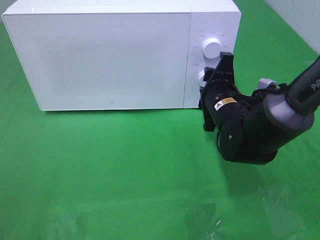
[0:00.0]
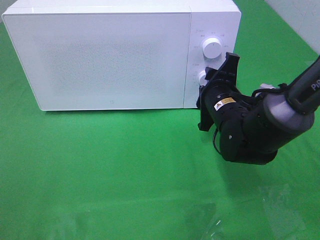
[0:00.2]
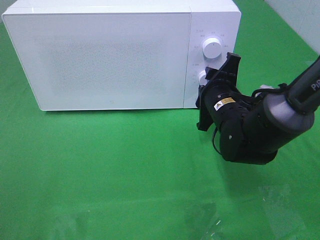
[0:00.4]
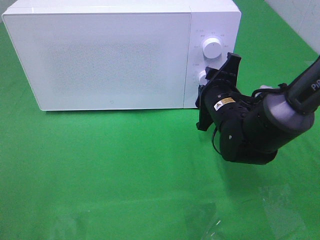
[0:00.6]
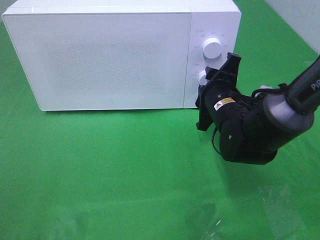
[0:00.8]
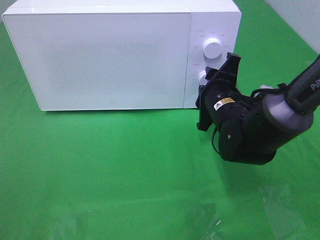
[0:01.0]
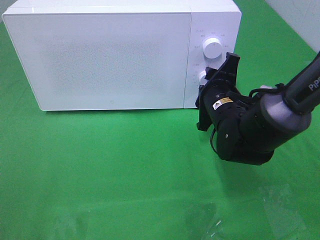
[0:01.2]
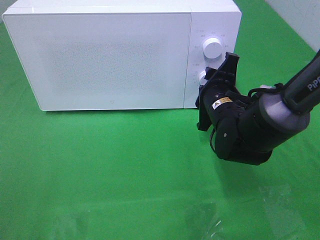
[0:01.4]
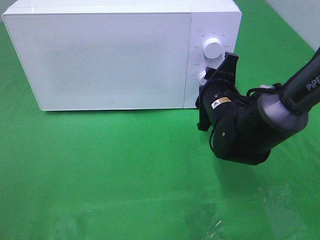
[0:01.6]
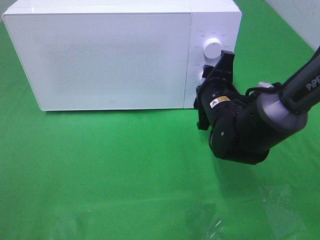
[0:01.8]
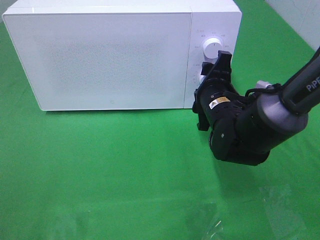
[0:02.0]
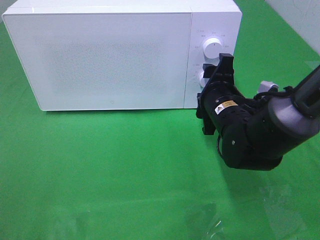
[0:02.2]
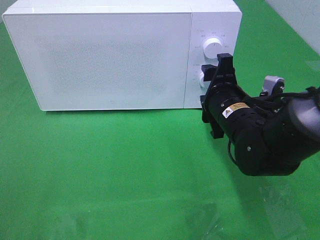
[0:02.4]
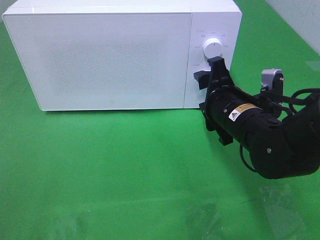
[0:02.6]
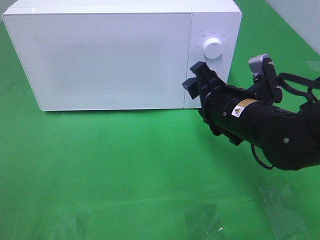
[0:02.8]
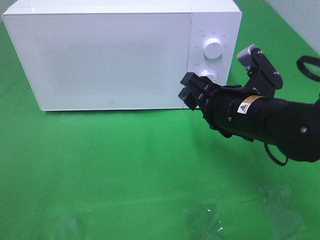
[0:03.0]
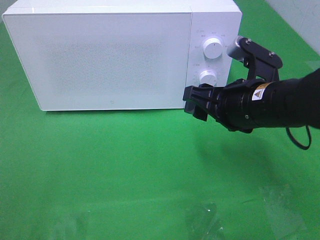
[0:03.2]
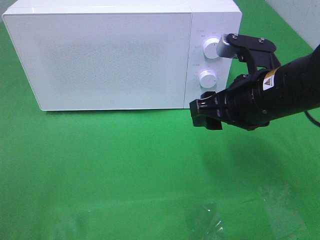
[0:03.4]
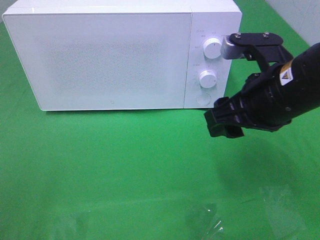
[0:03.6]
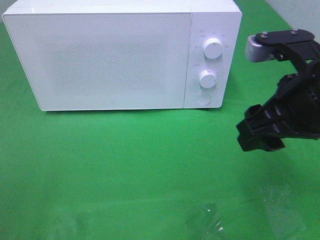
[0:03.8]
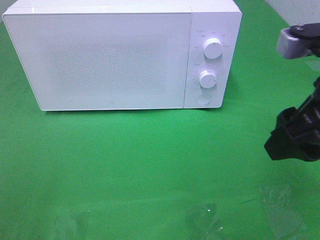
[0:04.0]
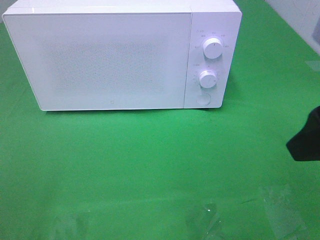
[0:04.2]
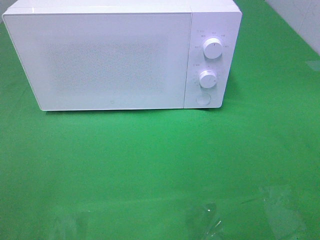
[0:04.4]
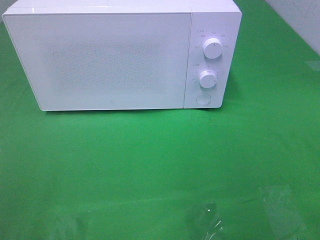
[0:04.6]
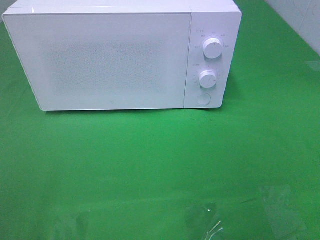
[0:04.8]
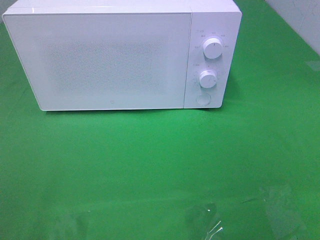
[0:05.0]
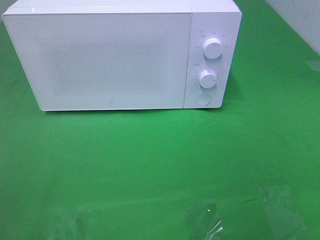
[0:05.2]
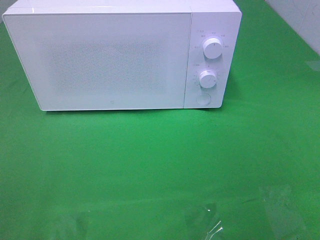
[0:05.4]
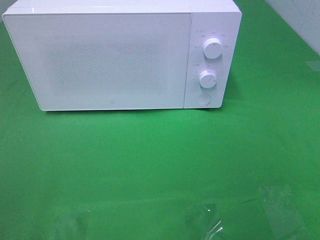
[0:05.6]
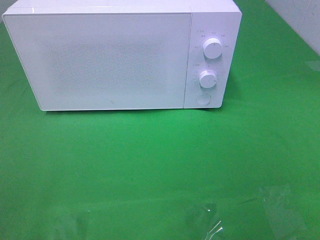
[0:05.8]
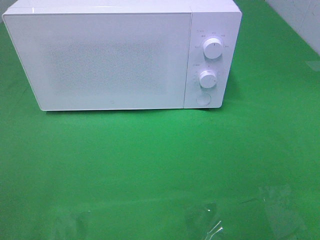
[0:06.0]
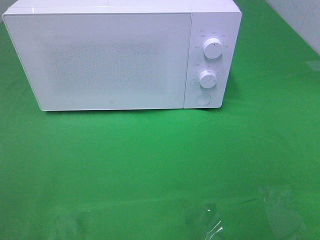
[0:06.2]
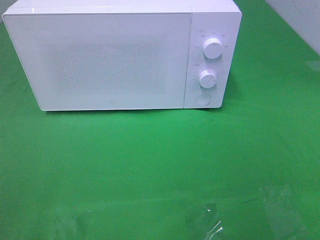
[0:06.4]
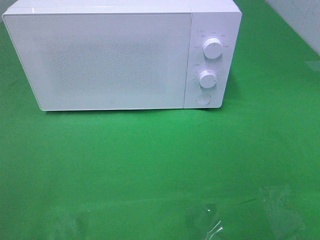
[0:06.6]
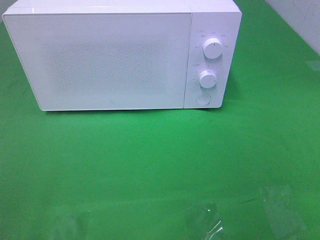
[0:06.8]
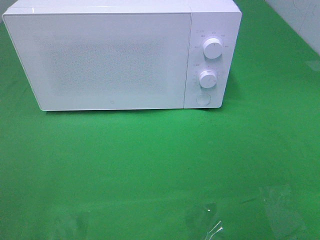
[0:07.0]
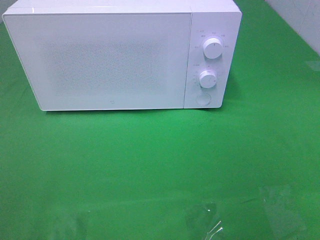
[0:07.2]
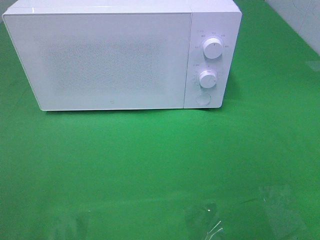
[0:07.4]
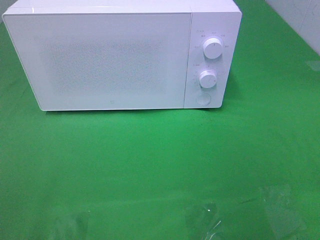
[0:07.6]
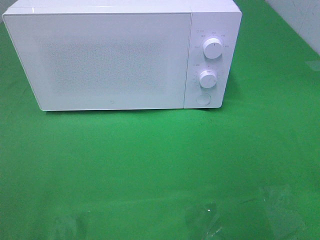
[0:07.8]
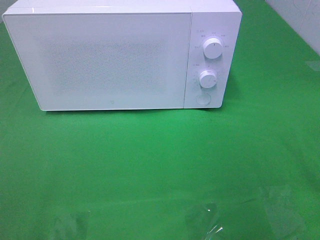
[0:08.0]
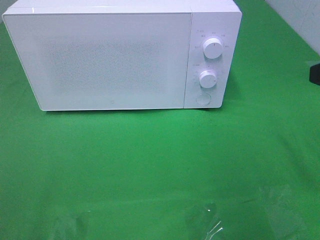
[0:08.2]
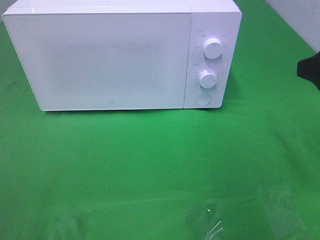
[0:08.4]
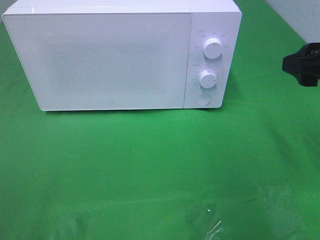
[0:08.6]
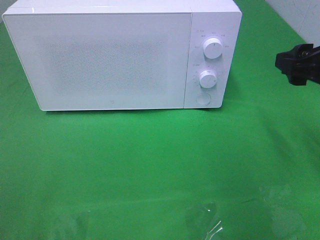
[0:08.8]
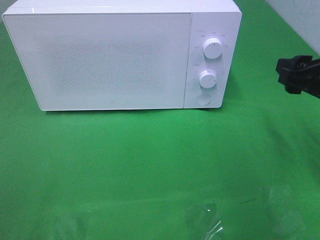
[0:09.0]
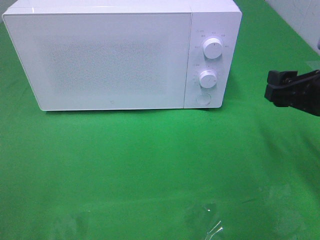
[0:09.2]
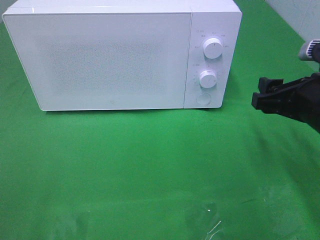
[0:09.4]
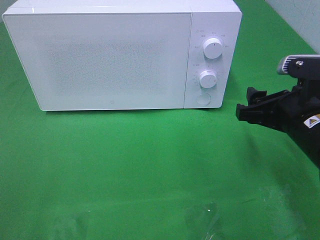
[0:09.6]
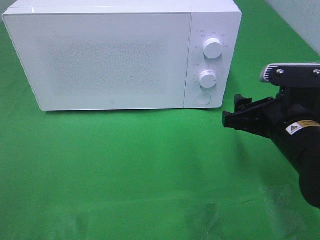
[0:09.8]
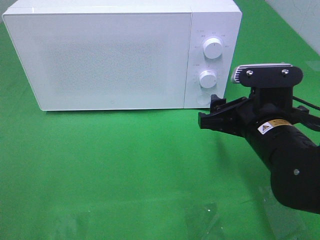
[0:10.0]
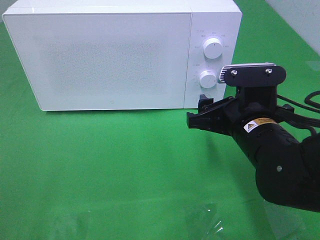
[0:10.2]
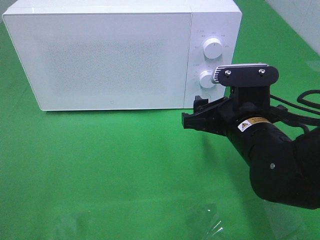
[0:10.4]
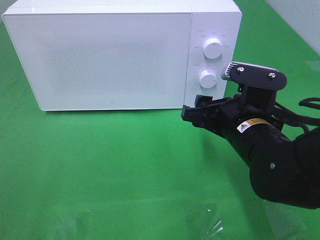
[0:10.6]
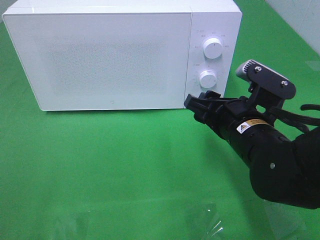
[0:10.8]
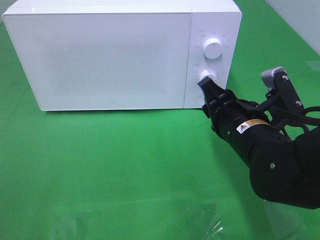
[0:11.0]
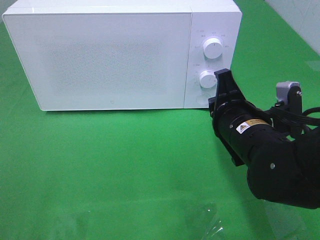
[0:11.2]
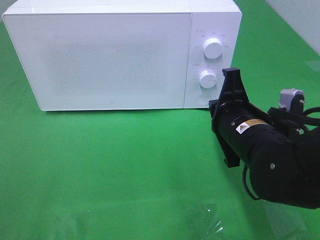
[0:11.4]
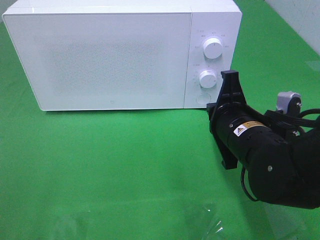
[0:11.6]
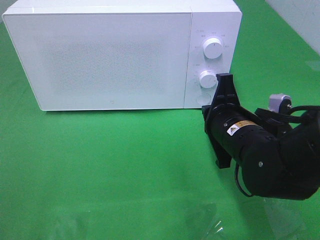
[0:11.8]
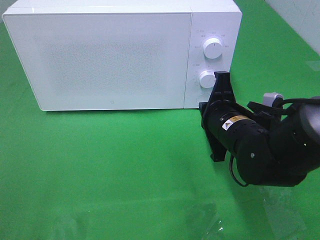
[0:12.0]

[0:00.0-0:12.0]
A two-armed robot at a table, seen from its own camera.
Task of the whole recording: Heat the burger.
Step, 0:00.0 to 0:02.4: Right hand: twist timer button.
0:00.0 to 0:01.6: There are only small adjustments of the grippers.
0:01.6 to 0:03.0: The right gripper is displaced backward and upward by some 10 cm.
0:03.0 to 0:04.4: The right gripper moves upward, backward and to the right, roughly 25 cm.
0:07.6 to 0:09.0: The right gripper is displaced forward and downward by roughly 15 cm.
0:09.0 to 0:10.4: The right gripper moves to the left and downward, approximately 15 cm.
0:10.4 to 0:12.0: The right gripper closes its fingers.

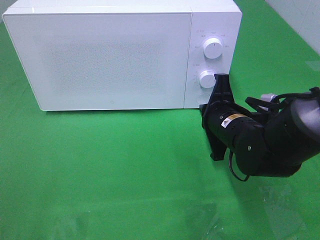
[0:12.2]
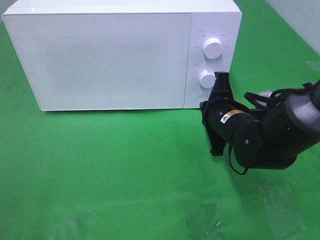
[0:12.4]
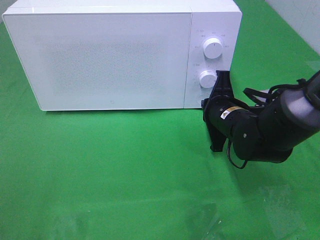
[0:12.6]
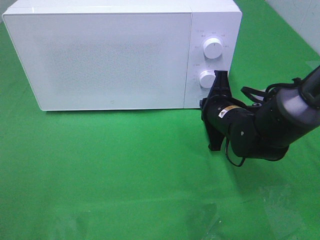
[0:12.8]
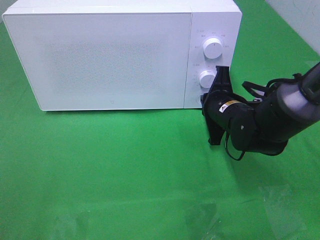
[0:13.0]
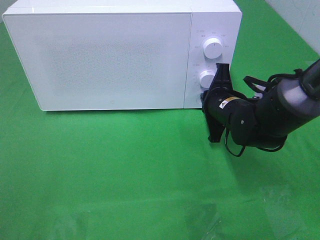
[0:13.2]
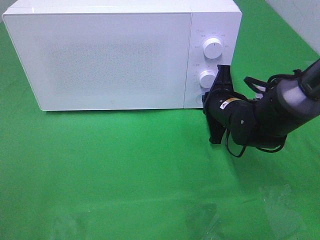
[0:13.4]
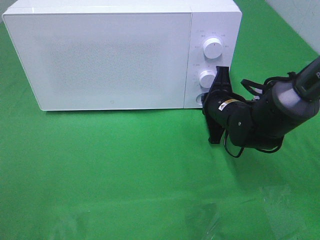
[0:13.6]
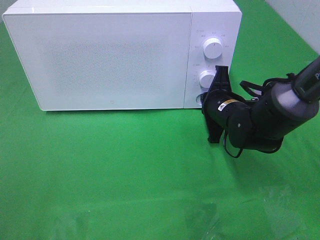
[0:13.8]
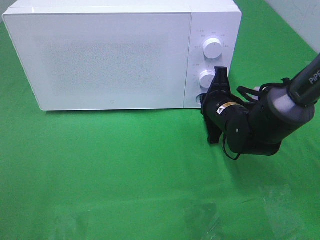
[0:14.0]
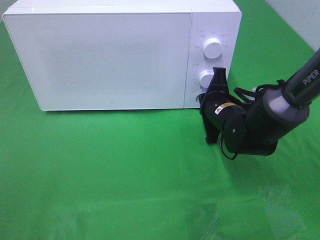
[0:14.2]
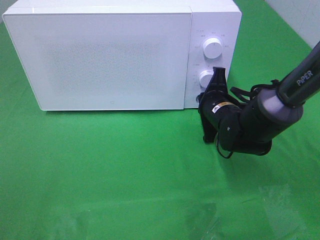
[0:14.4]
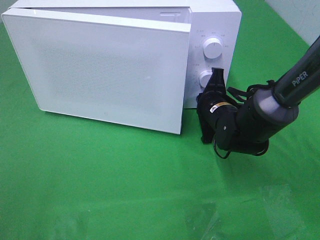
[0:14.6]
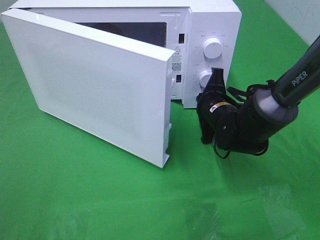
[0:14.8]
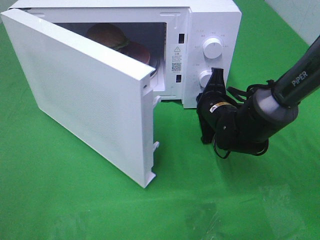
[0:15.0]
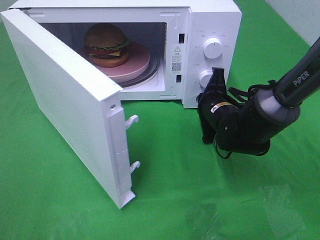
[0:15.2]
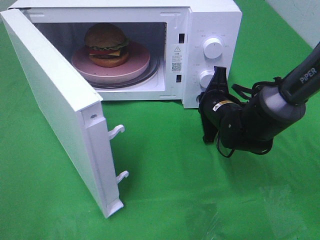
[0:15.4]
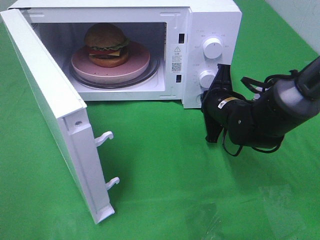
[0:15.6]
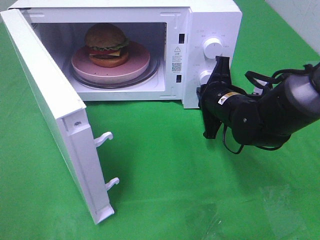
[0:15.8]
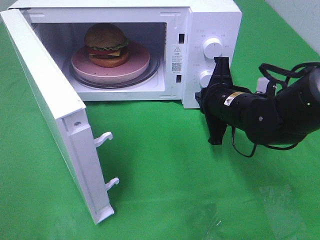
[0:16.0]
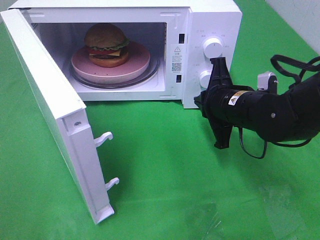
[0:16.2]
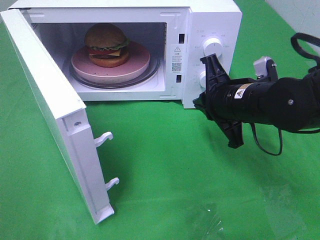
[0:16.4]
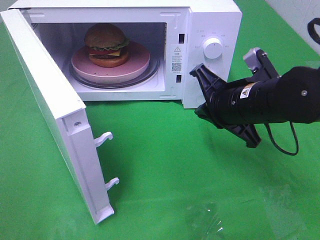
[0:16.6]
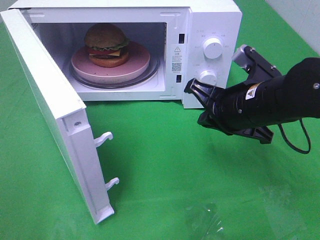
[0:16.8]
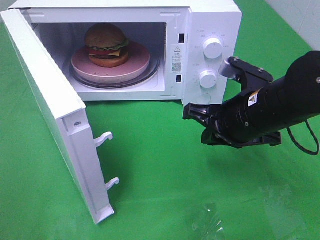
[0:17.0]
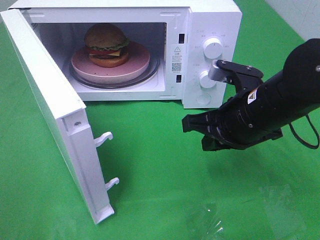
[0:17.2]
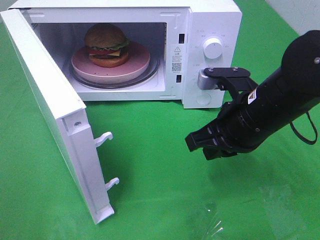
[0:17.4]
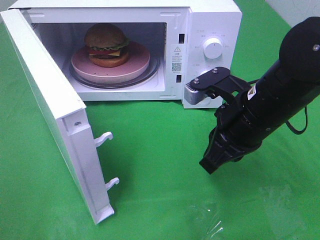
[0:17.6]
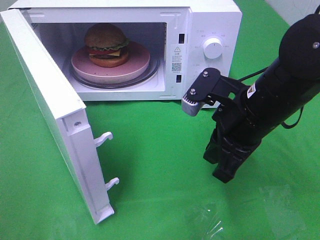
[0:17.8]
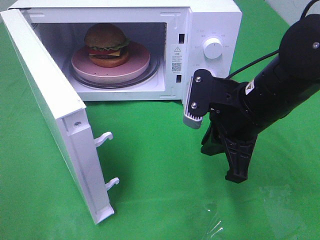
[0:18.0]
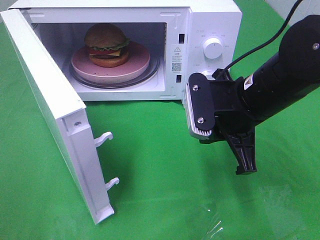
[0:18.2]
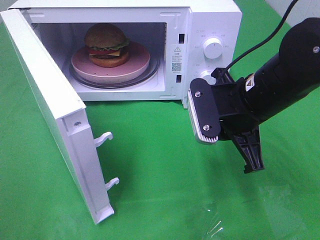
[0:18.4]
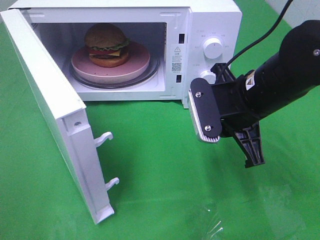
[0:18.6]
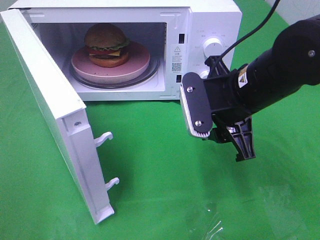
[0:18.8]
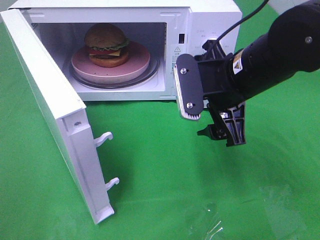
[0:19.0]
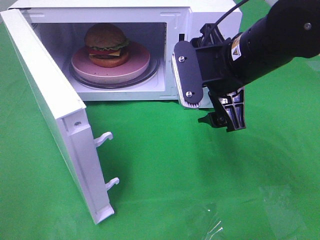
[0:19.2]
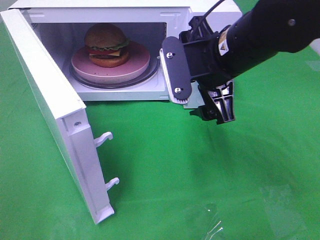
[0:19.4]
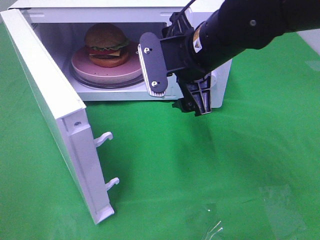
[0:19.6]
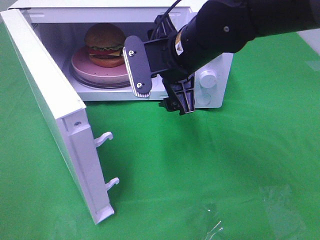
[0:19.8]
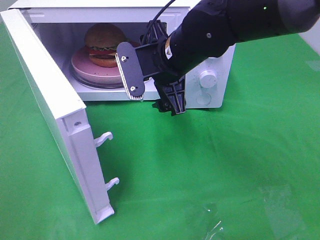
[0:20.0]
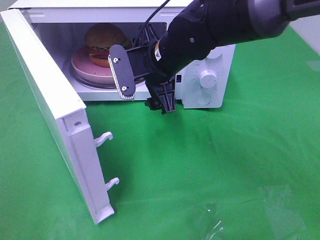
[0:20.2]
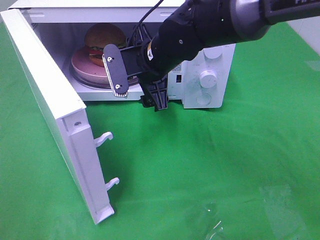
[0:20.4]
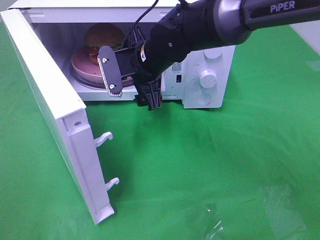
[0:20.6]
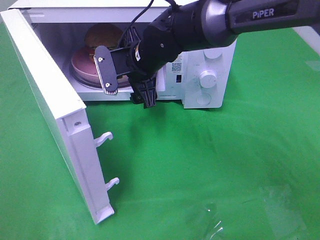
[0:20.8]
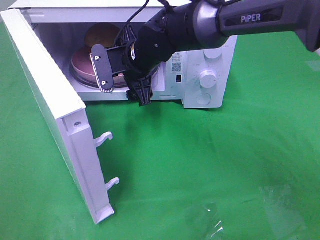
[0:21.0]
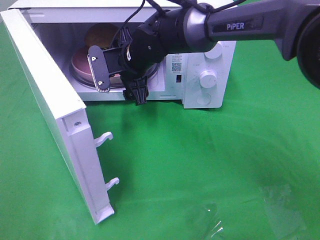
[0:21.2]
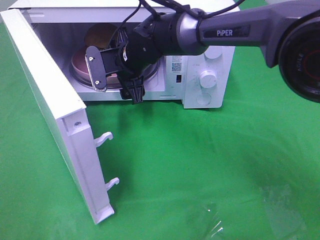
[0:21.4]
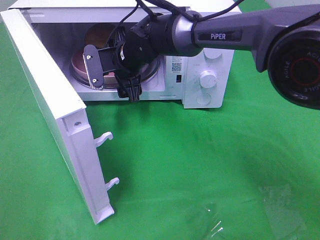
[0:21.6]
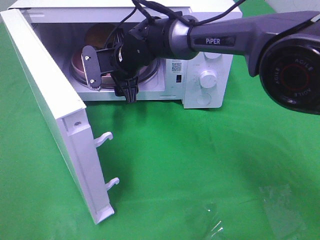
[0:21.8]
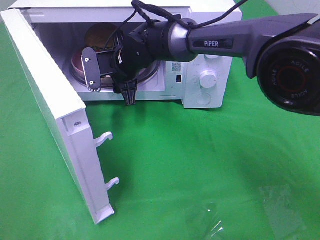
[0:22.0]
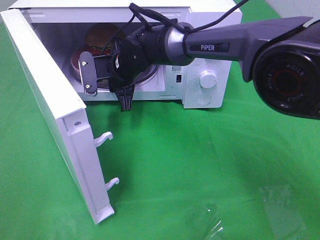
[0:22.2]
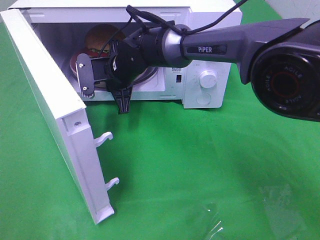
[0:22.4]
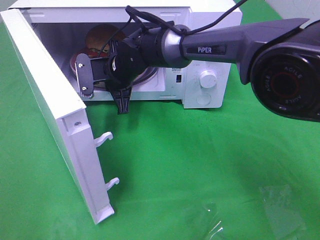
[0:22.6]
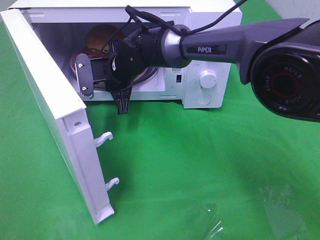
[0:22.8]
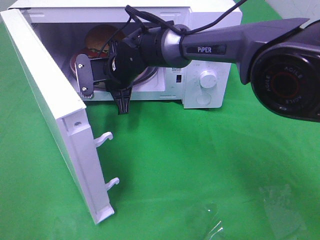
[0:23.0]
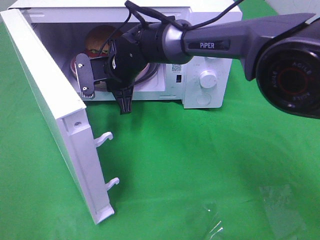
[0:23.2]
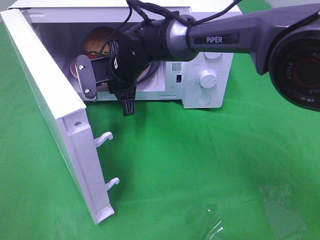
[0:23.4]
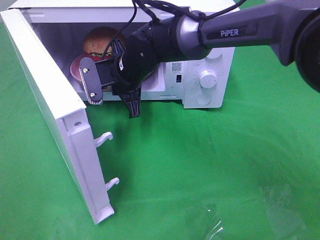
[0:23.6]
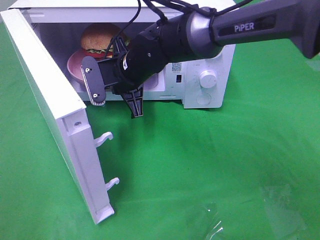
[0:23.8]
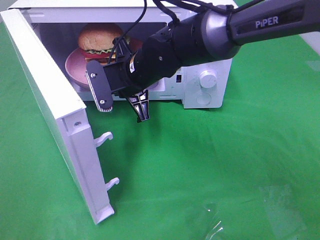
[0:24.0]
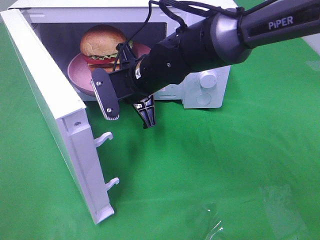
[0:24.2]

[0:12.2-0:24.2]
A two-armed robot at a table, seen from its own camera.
Task of the whole recording: Heat the burger.
Step, 0:12.2 to 0:16.4: Right hand: press the switch.
Step, 0:16.6 to 0:23.0: Right hand: grab the plate with the hamburger.
0:12.2 to 0:13.8: The right gripper goes roughly 5 cm forward.
0:15.2 to 0:16.6: The right gripper is displaced upward and backward by about 10 cm.
0:18.2 to 0:19.8: The right gripper heads to the left and forward, covering approximately 10 cm, and opens its fingers.
0:19.8 to 0:21.2: The right gripper heads forward, to the left and downward, covering about 15 cm.
0:21.2 to 0:22.6: The right gripper closes.
0:22.6 to 0:24.2: The right gripper shifts about 5 cm backward.
